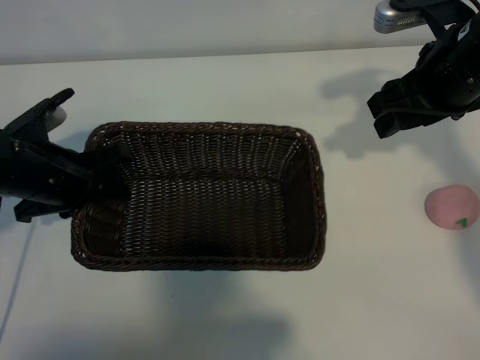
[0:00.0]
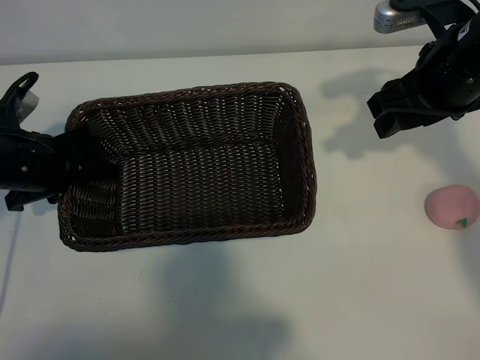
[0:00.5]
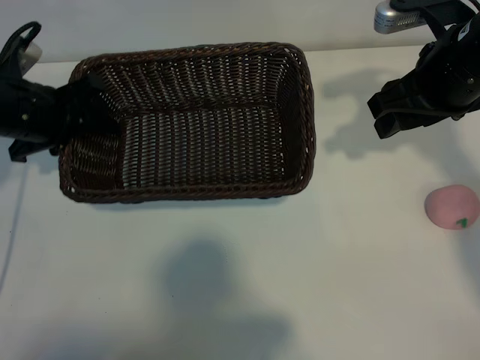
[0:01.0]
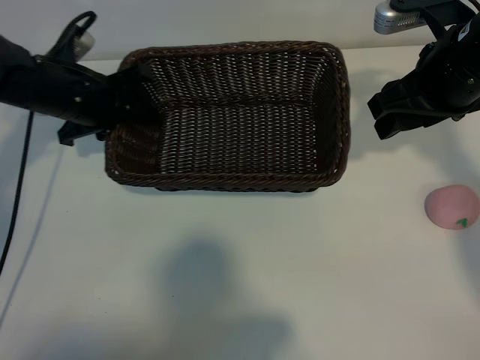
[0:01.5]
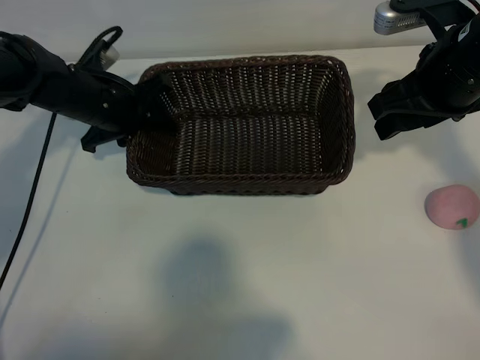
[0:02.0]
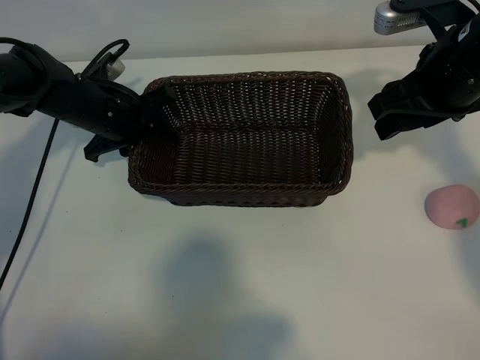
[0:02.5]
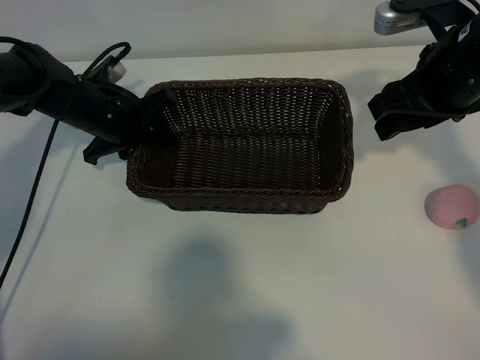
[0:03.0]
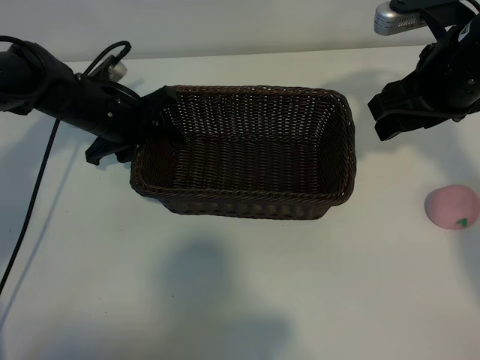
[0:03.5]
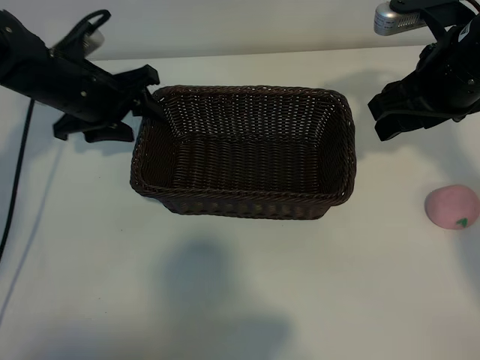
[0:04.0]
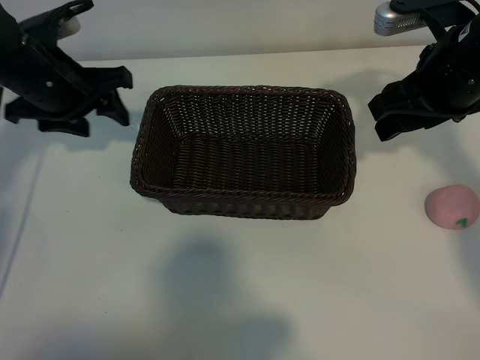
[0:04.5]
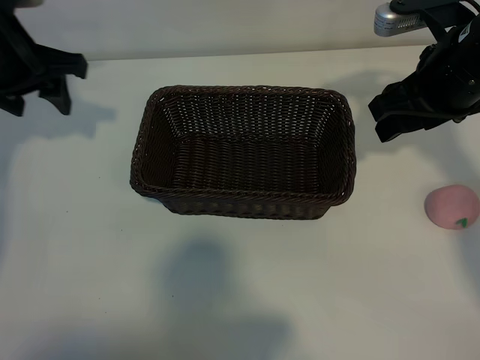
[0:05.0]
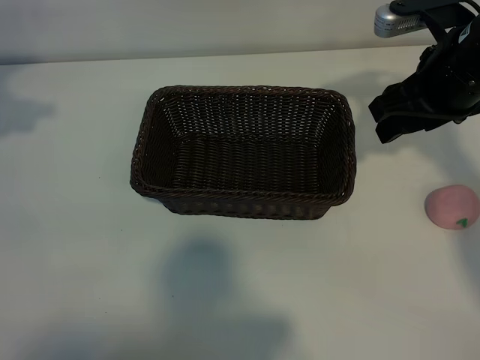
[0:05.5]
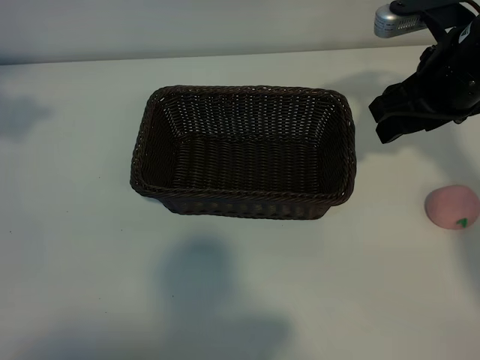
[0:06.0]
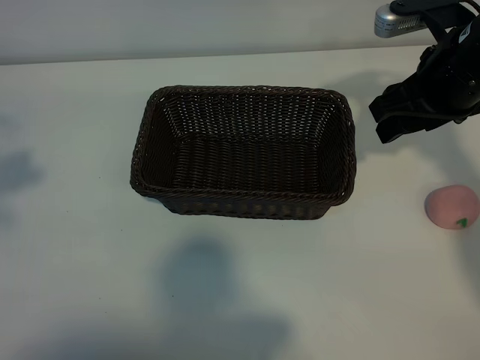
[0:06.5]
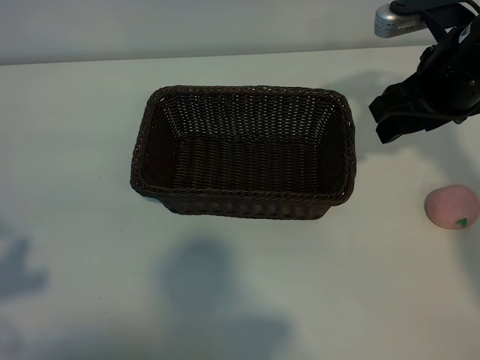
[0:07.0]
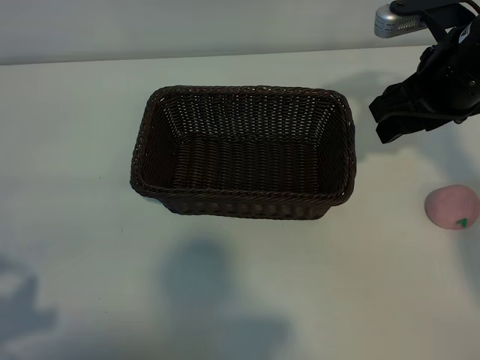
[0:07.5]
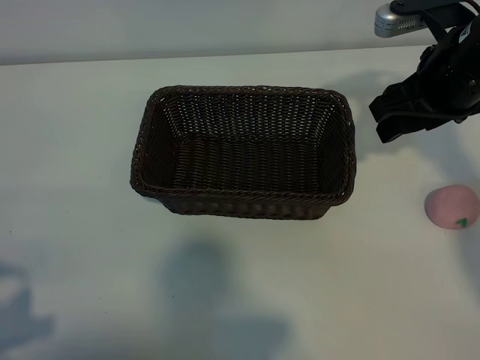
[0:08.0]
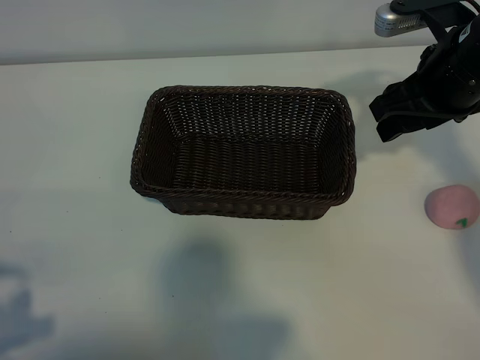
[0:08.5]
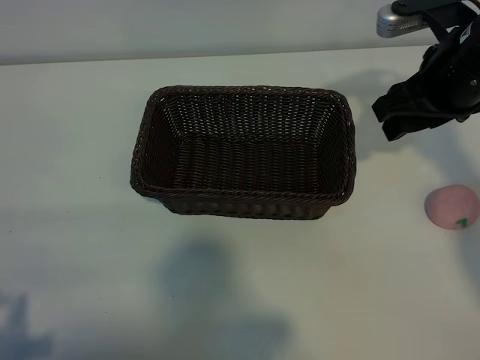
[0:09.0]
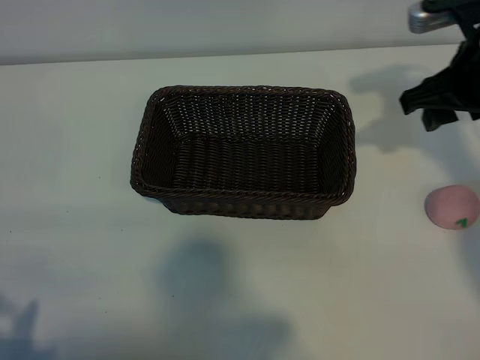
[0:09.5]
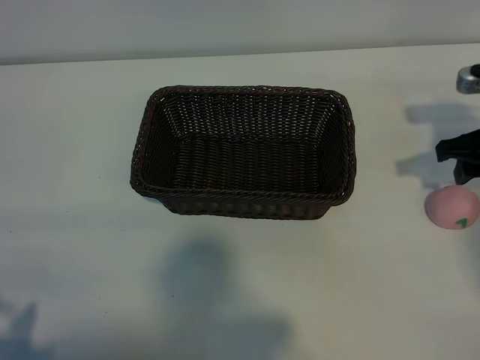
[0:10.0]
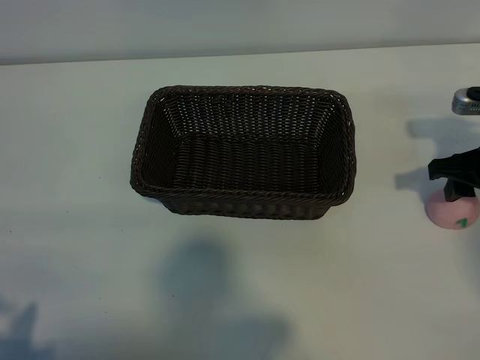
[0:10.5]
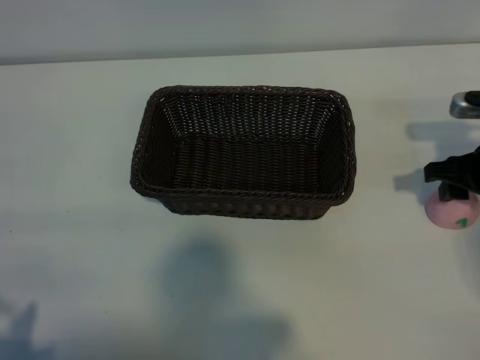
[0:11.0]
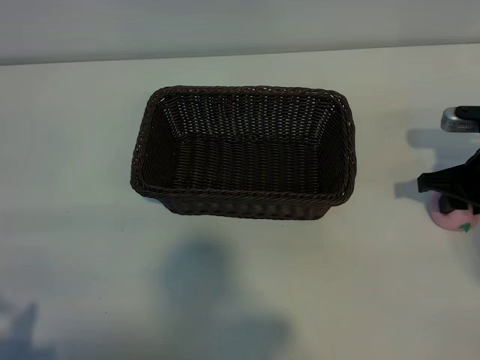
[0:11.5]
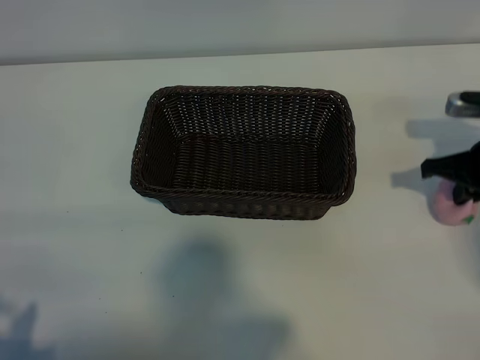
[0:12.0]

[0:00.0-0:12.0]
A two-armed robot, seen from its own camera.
Task of the whole recording: pick up the peach and put it into the basket.
Step, 0:00.0 to 0:04.0: Place the basket in the center of view with left gripper.
Step, 0:04.5 to 0:11.5: Grasp the peach with right gripper.

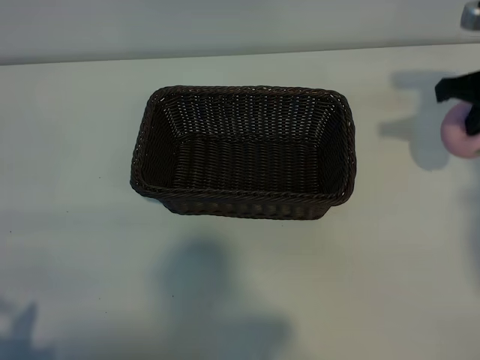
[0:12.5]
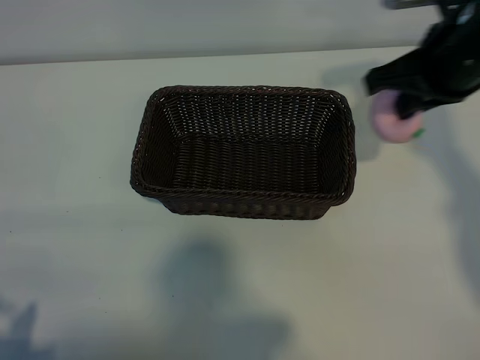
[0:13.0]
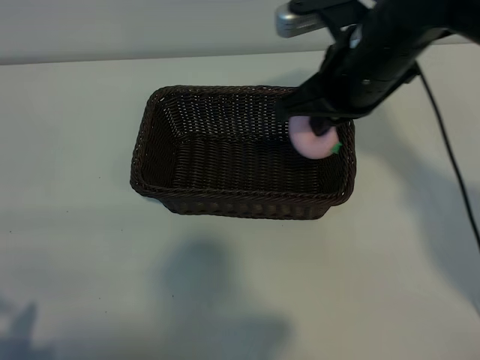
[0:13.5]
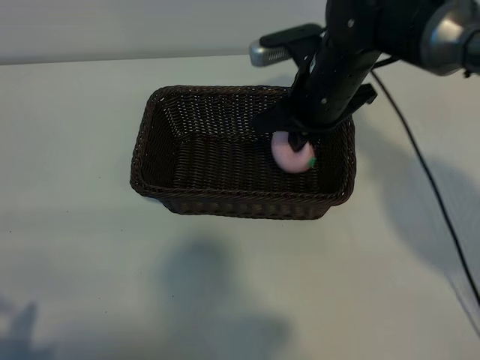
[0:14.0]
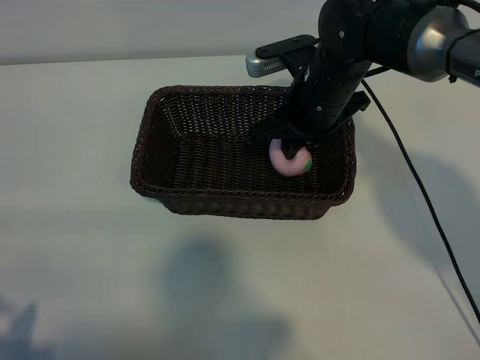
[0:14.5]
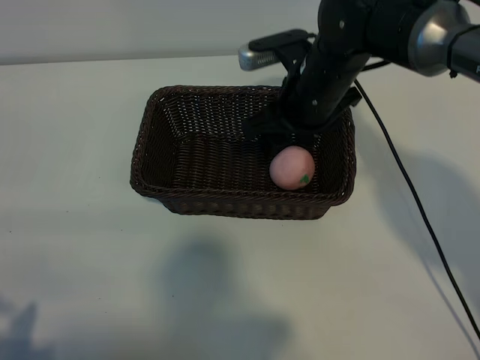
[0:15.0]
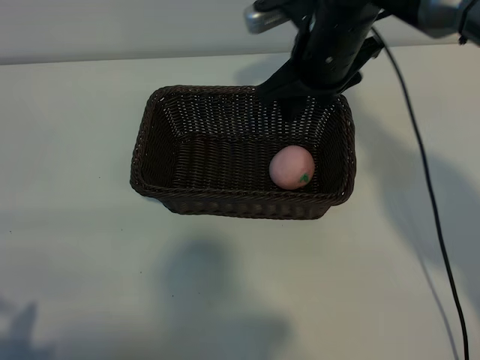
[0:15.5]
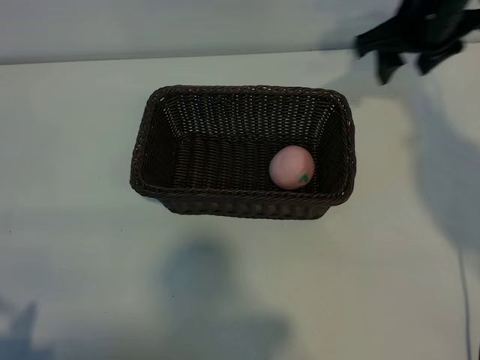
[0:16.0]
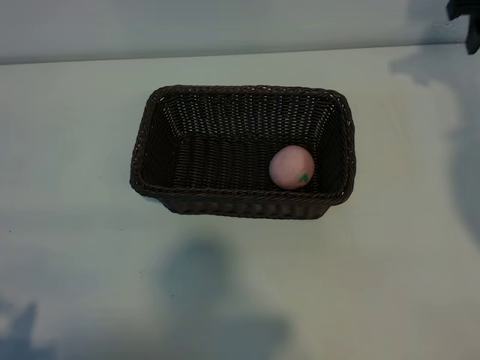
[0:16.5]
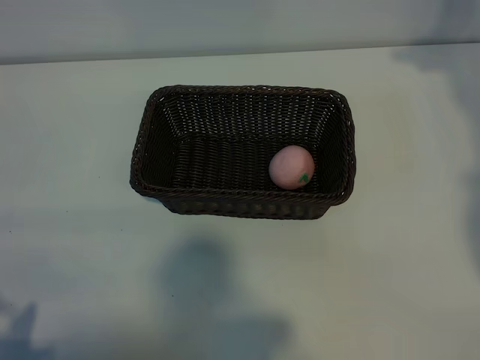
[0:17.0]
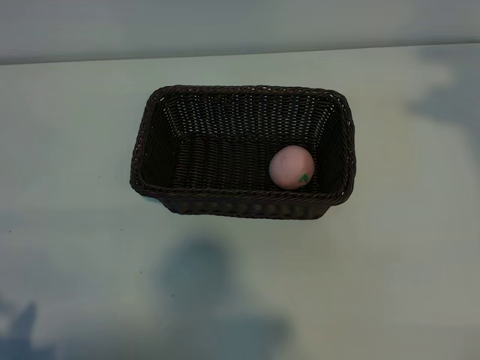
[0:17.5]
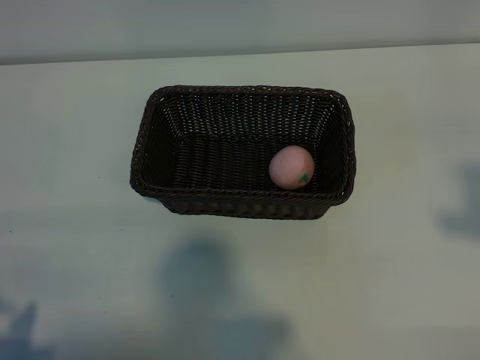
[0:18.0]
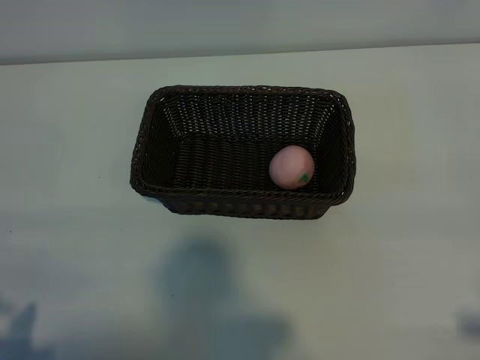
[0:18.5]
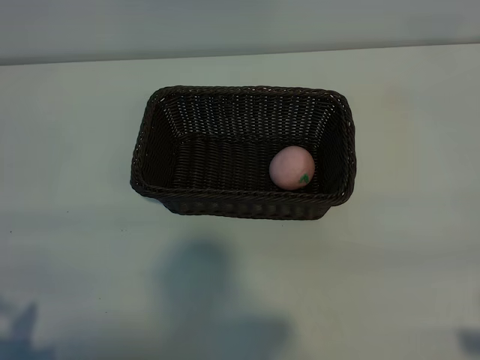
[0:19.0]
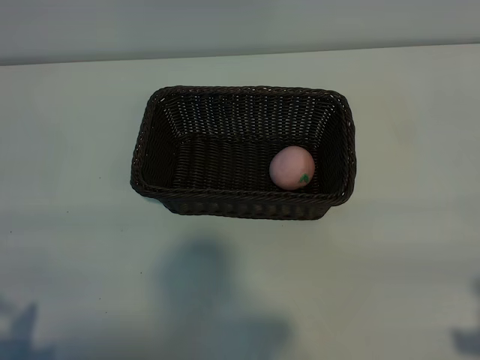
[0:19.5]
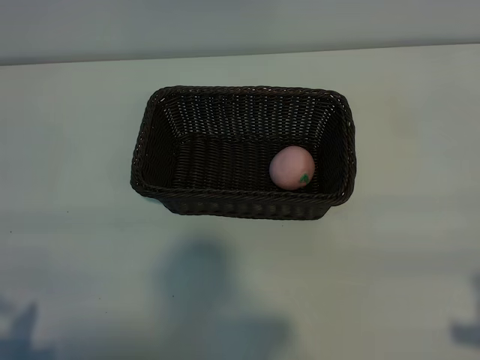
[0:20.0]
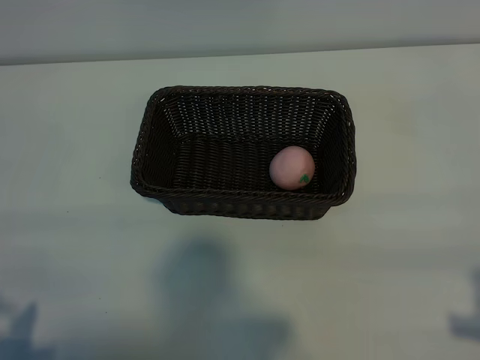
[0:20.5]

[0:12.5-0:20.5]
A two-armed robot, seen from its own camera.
Task of the whole recording: pick up the peach and put it into the basket.
Step, 0:12.5 to 0:15.0: Place the peach in the basket with right gripper.

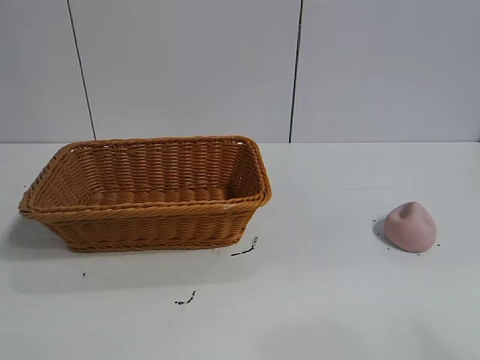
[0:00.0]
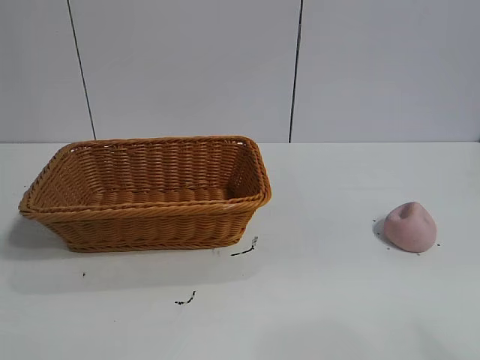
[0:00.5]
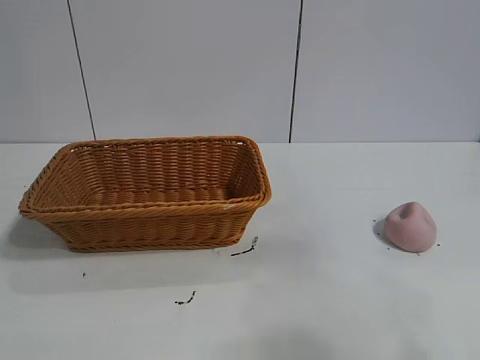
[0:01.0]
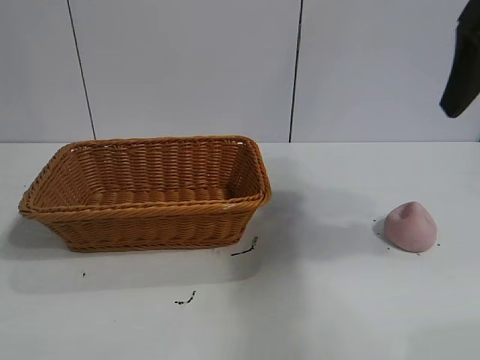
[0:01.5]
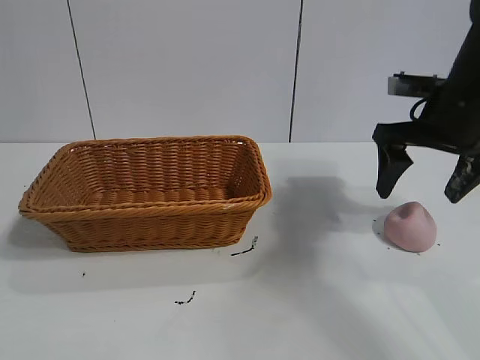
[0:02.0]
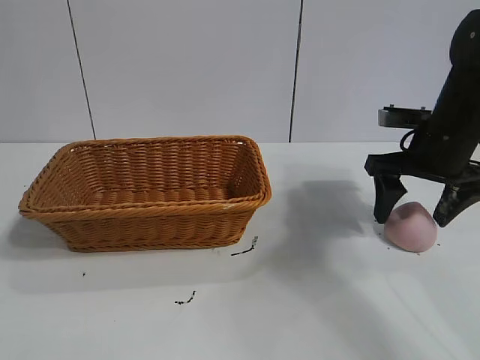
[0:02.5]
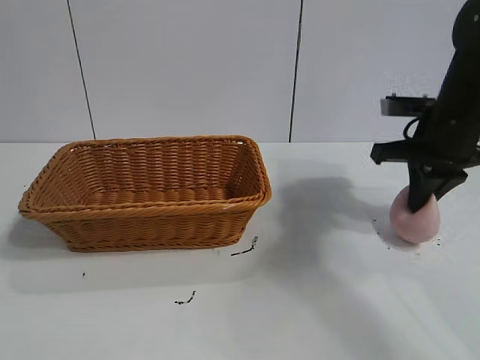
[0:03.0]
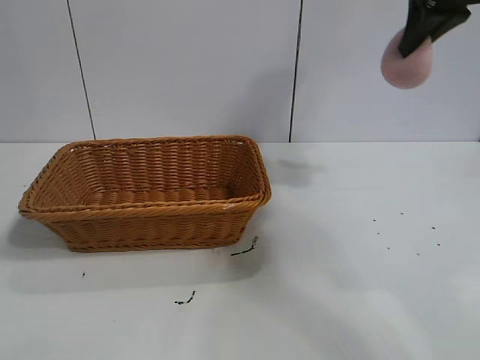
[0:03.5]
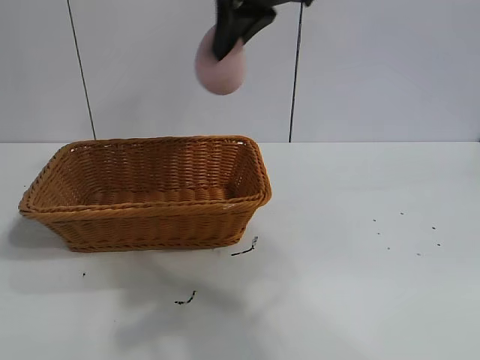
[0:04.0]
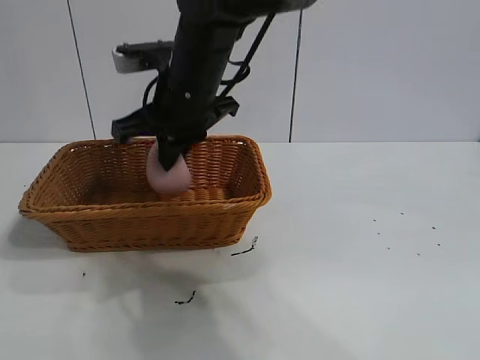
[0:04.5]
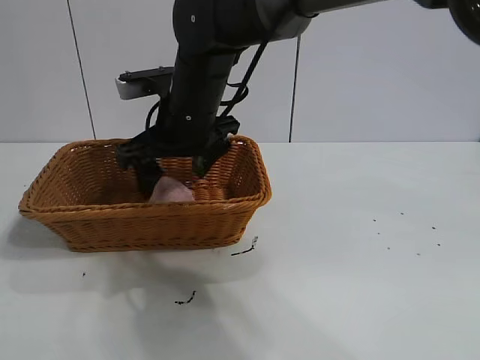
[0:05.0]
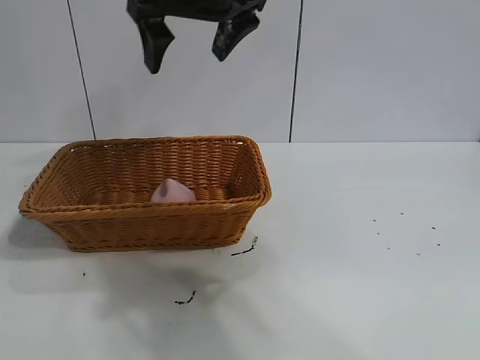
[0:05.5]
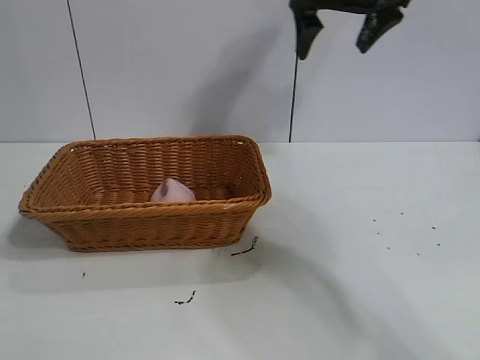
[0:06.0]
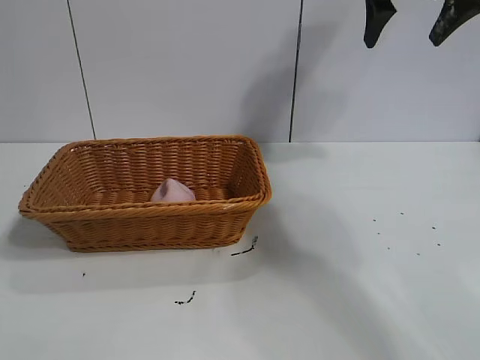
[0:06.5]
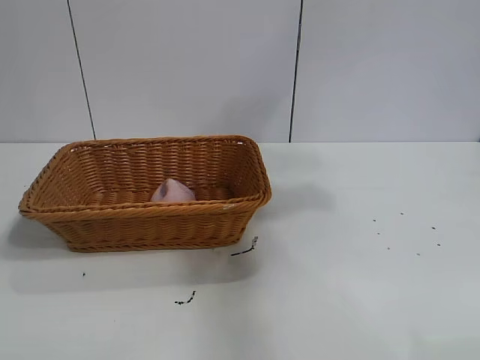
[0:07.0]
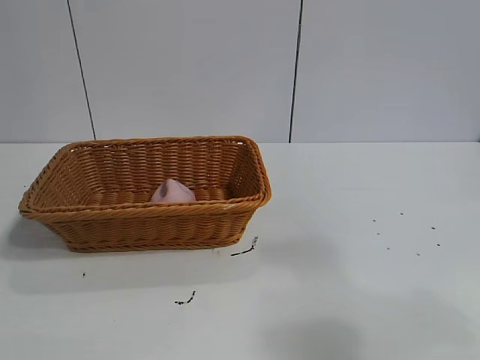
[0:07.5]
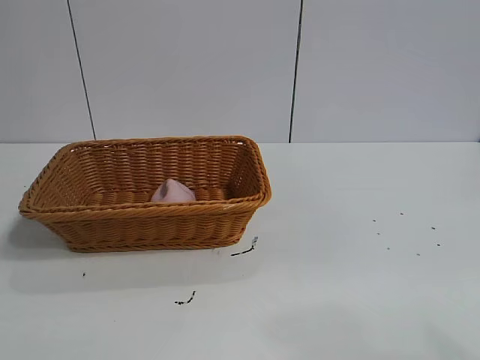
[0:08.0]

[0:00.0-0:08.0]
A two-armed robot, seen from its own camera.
Task of the whole recording: pick up the peach and put it into the basket.
Step, 0:01.0 to 0:02.5: Grasp the peach with right gripper.
Step, 0:03.5 to 0:05.0: Place the peach in the basket with right gripper.
